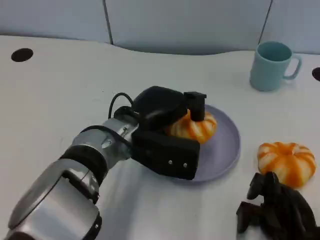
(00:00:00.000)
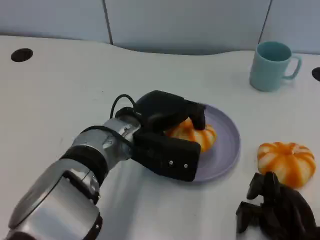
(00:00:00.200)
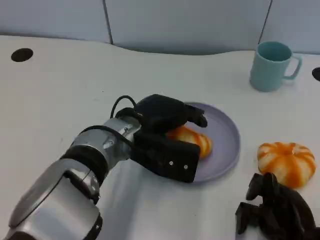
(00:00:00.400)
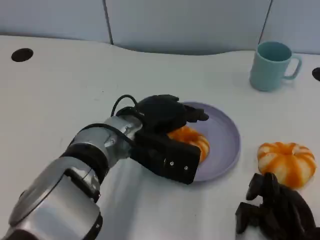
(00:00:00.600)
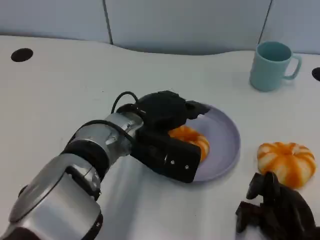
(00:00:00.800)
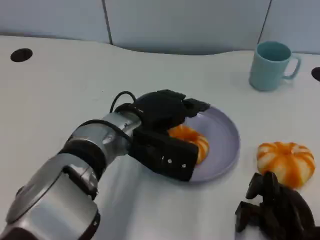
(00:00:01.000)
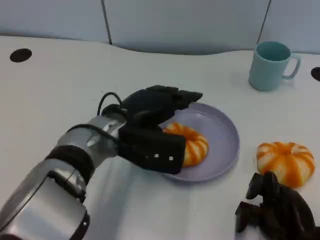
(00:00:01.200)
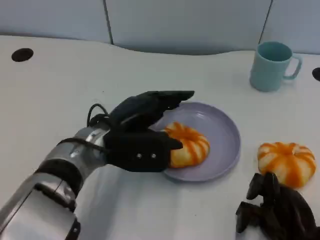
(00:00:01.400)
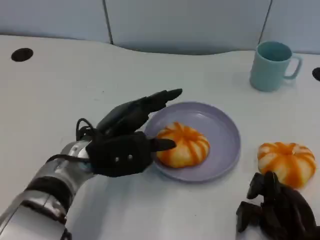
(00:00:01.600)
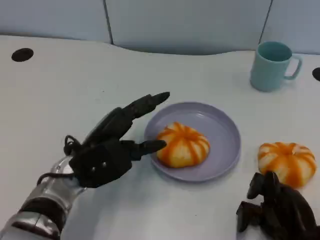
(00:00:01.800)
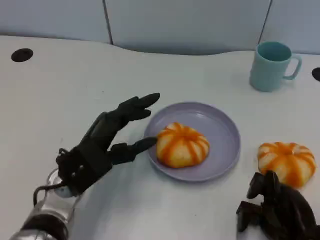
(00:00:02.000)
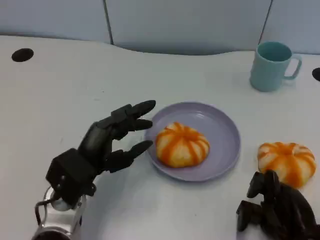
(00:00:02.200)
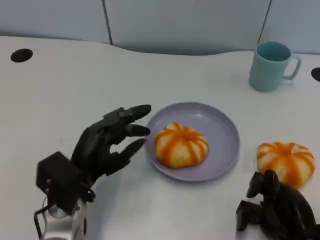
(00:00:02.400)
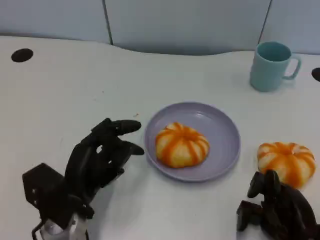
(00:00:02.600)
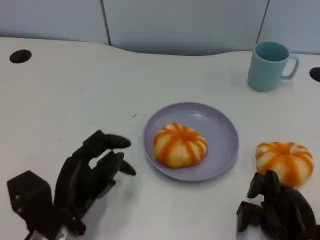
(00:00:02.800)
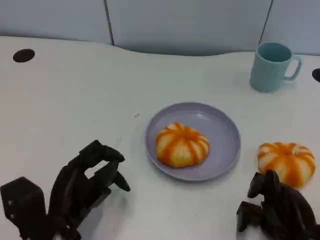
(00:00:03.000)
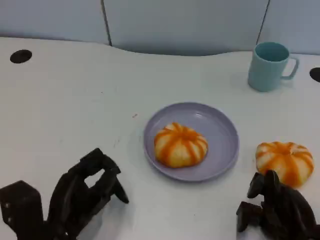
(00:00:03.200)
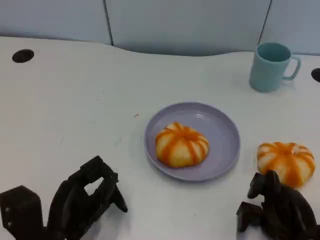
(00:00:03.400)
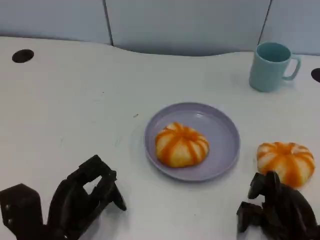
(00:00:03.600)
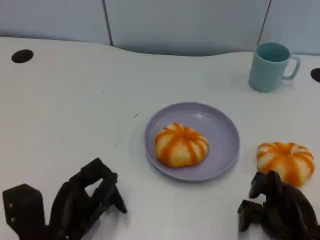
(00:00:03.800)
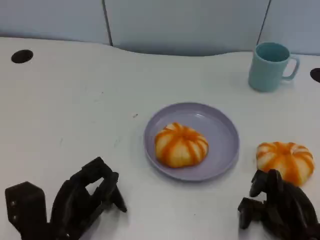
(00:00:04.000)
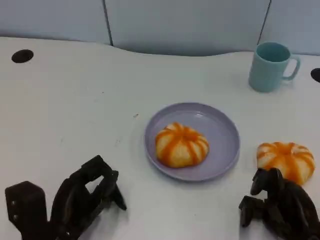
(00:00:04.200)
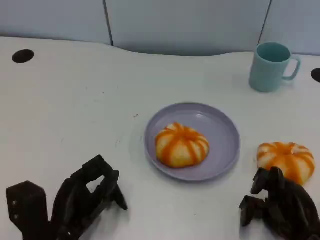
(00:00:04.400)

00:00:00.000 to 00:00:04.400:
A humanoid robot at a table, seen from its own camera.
Task of the whole recording: Grasp the bread from the table and place it into the plate.
00:00:00.000 to 00:00:01.400: The hands stay close to where they were, moving slightly.
00:00:01.400 to 00:00:03.000: The left hand shifts some 15 cm backward, to the left and downward.
00:00:03.000 to 00:00:04.400: The hands stay close to where they were, moving slightly.
